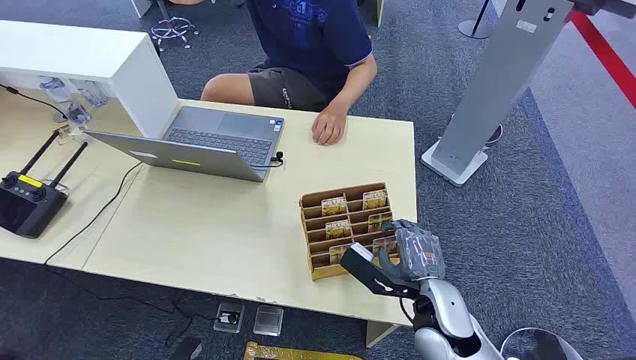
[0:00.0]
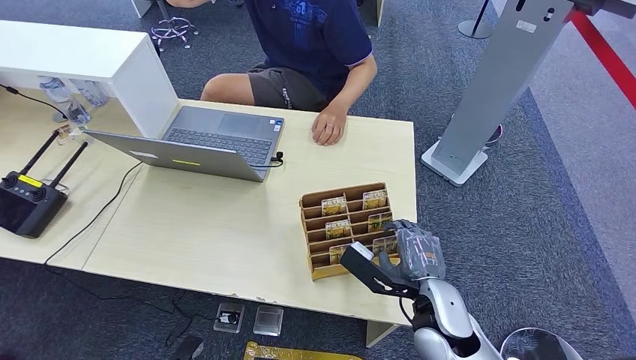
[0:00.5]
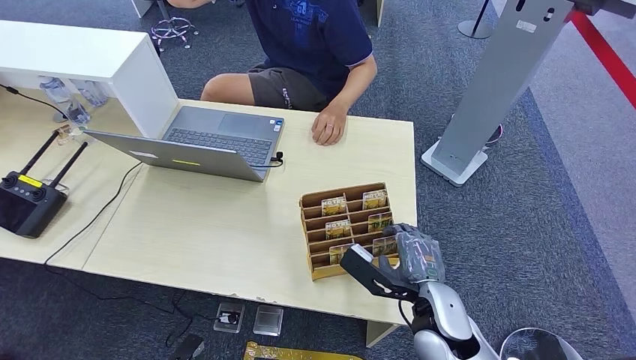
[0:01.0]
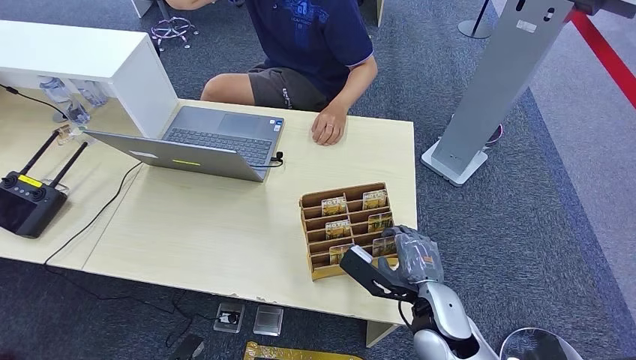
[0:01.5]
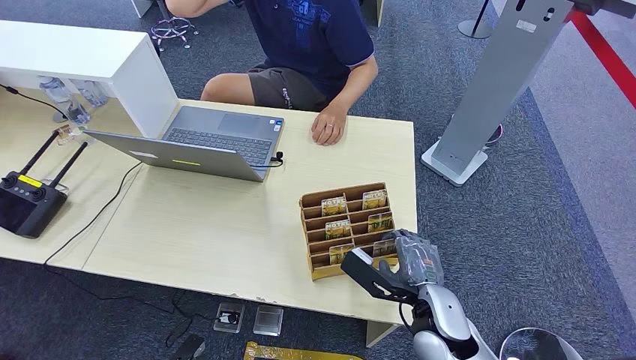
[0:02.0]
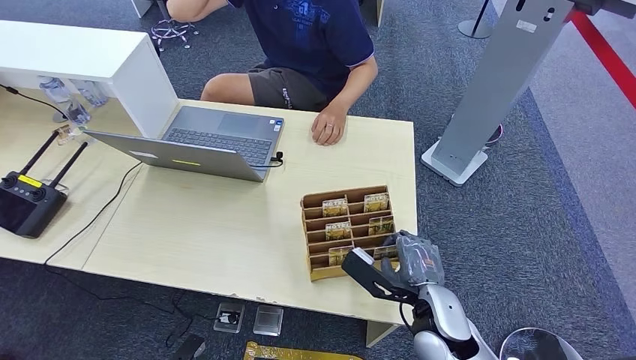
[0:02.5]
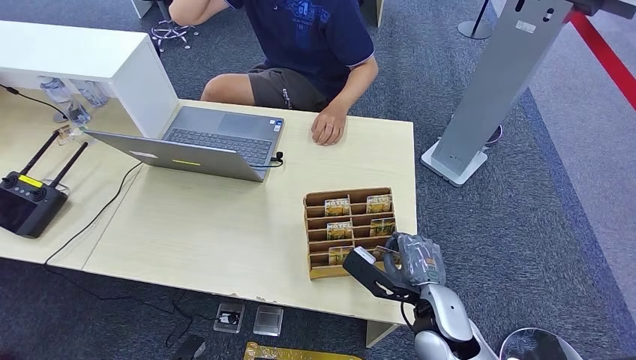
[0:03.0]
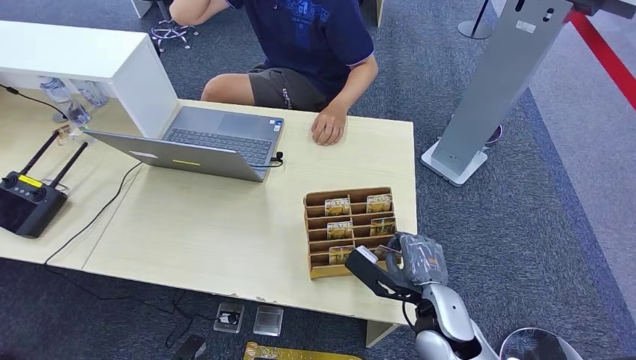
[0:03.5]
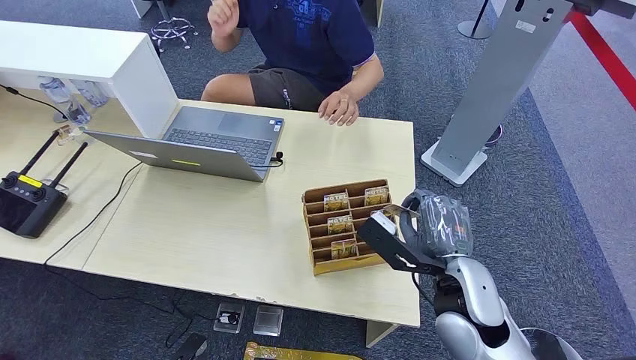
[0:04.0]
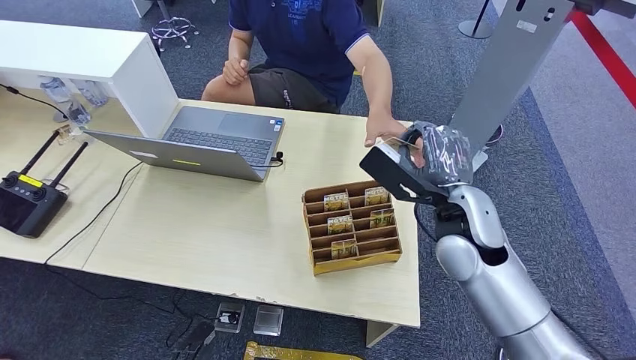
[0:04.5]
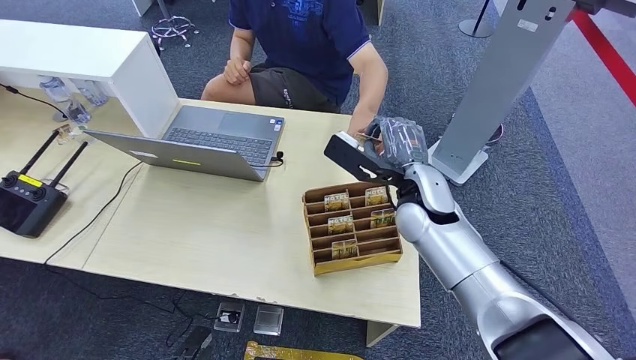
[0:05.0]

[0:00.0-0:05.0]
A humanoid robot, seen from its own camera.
Step, 0:00.0 to 0:03.5: Pick up the room card from the card holder.
Step, 0:04.5 to 0:05.0: Hand the room card to the target.
0:02.5 to 0:05.0: The right hand goes some 20 cm forward and upward.

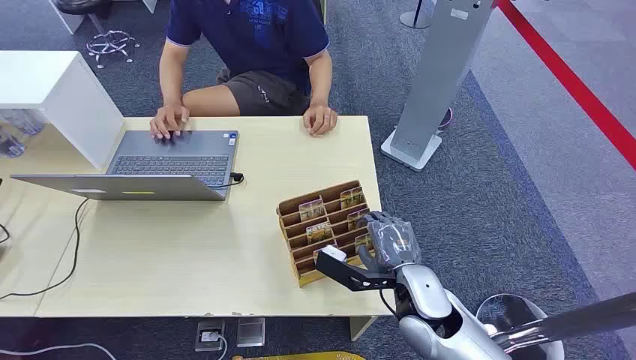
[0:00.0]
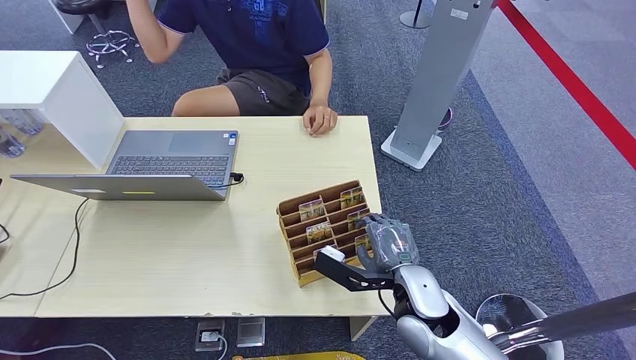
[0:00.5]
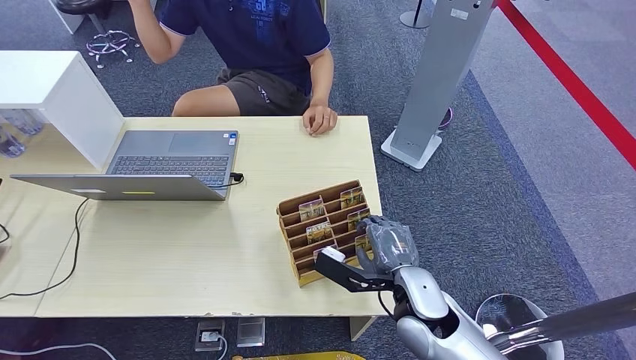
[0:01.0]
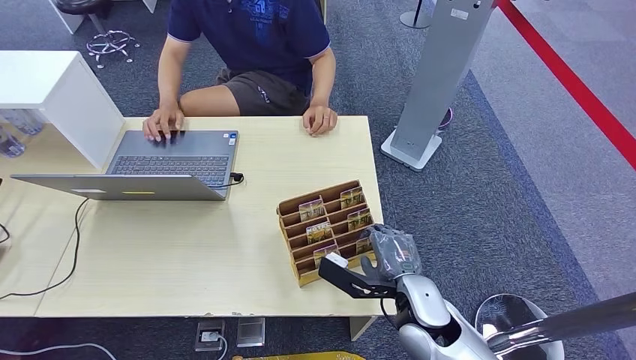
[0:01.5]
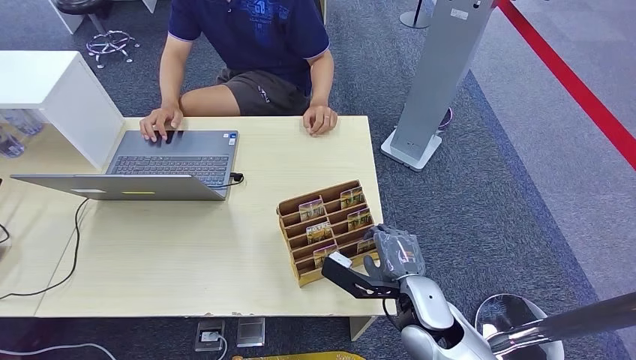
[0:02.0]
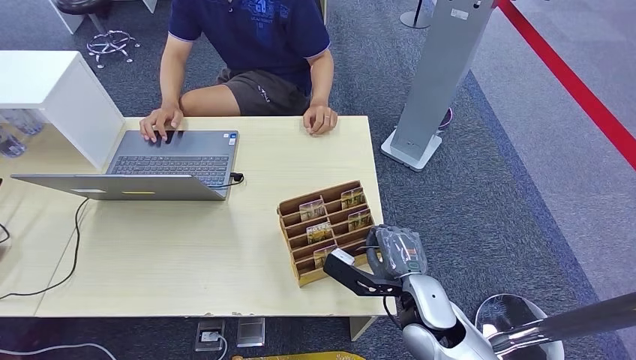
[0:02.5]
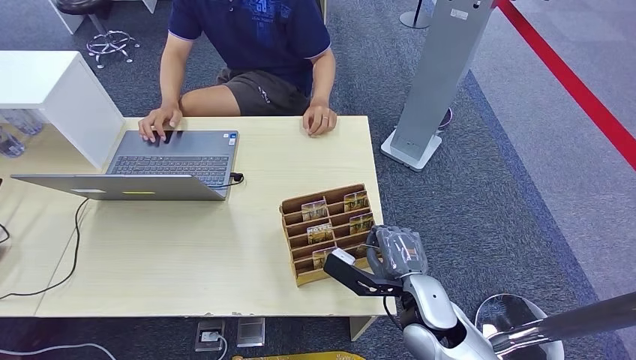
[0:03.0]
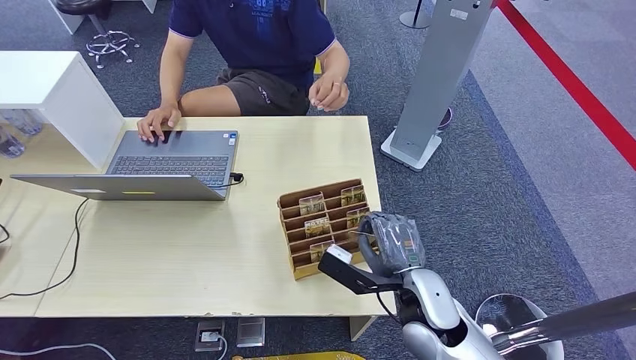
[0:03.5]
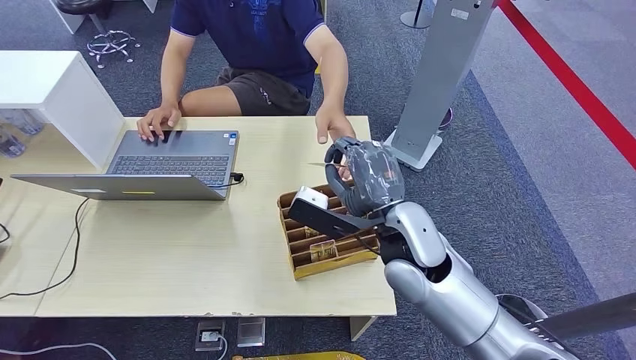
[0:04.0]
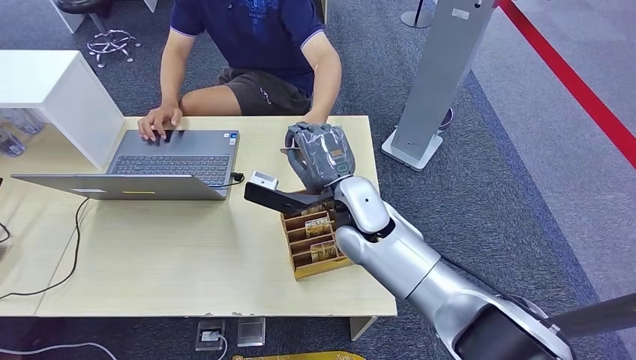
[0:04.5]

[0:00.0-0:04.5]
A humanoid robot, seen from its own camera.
Step, 0:00.0 to 0:03.5: Pick up the room card from the card holder.
Step, 0:04.0 to 0:04.5: Hand the room card to the target.
0:02.0 to 0:04.5: The right hand heads forward, upward and to the left, covering about 20 cm.
